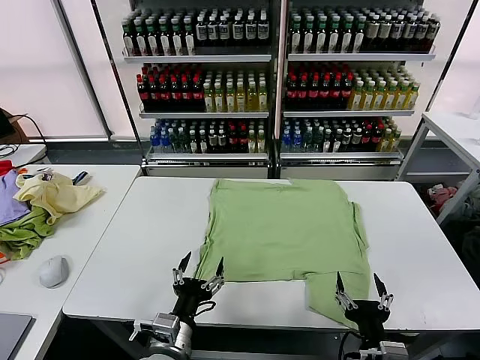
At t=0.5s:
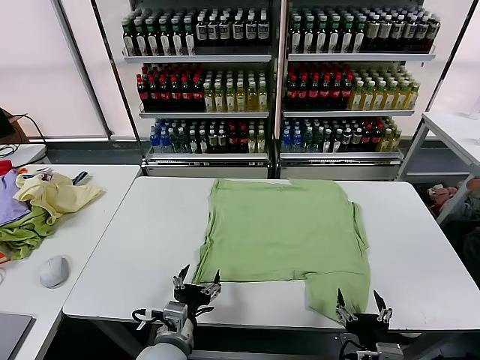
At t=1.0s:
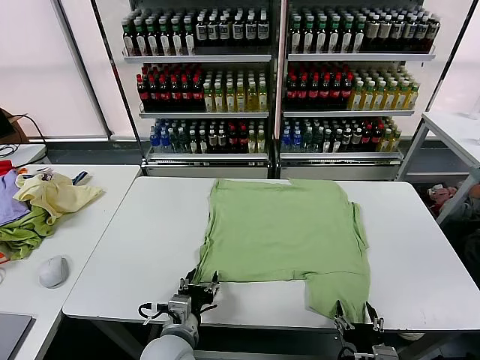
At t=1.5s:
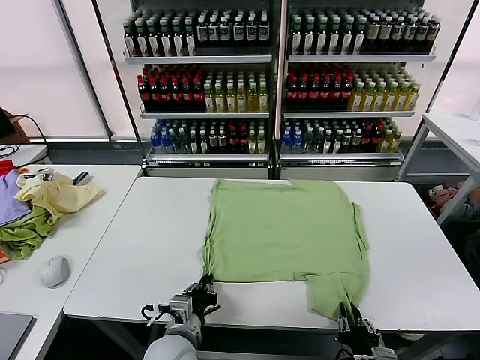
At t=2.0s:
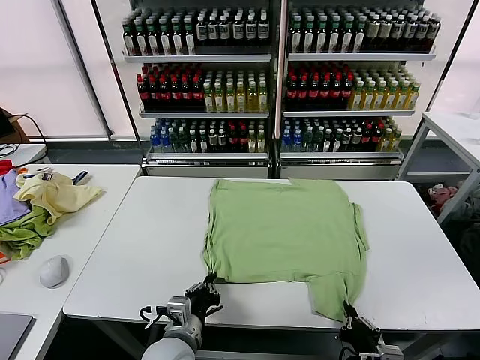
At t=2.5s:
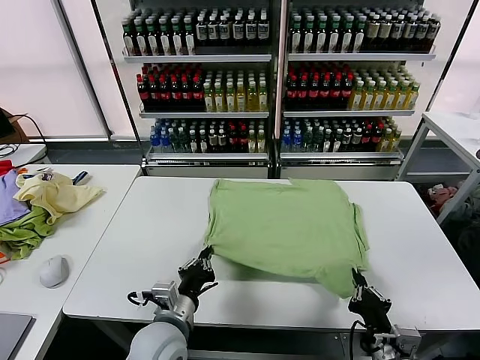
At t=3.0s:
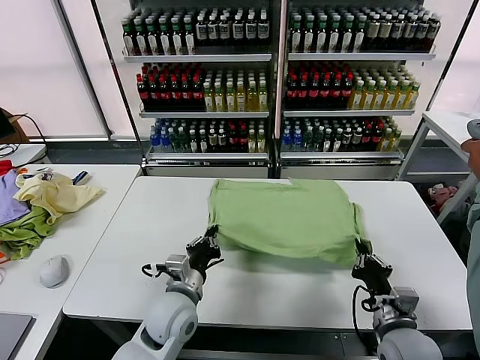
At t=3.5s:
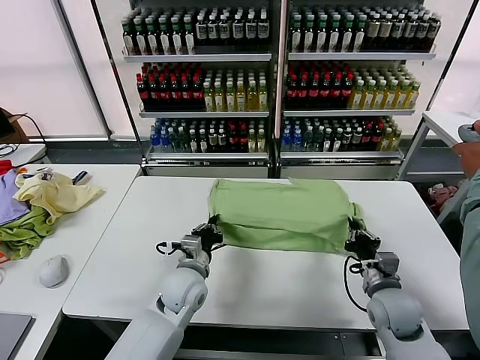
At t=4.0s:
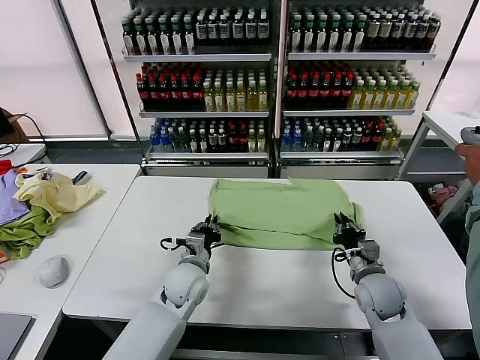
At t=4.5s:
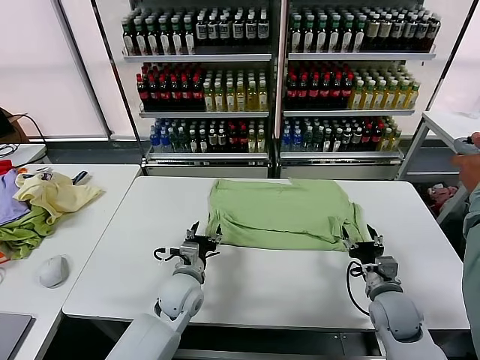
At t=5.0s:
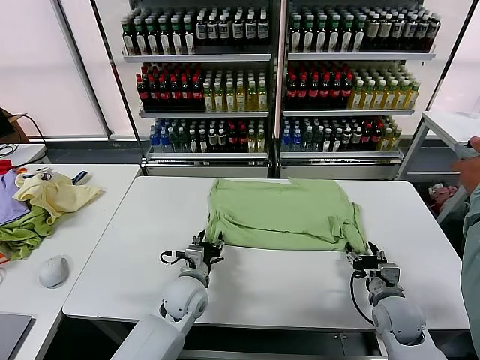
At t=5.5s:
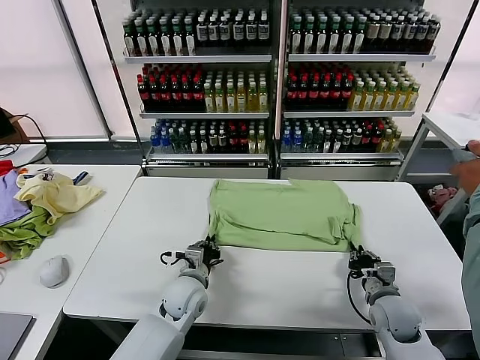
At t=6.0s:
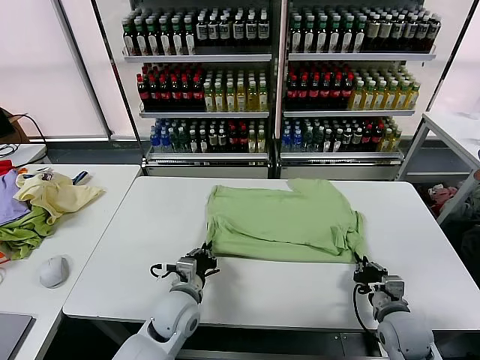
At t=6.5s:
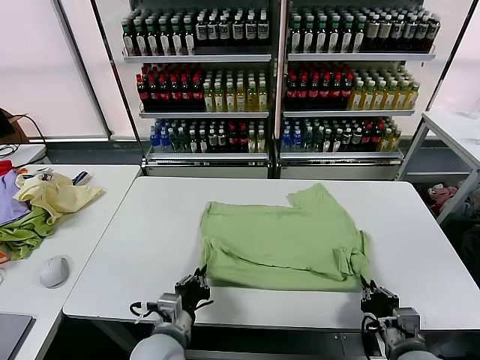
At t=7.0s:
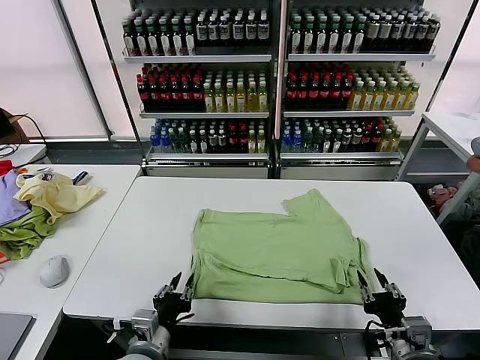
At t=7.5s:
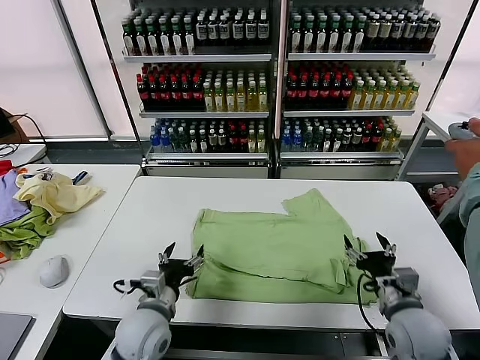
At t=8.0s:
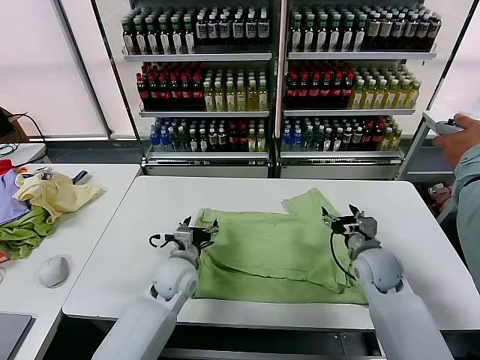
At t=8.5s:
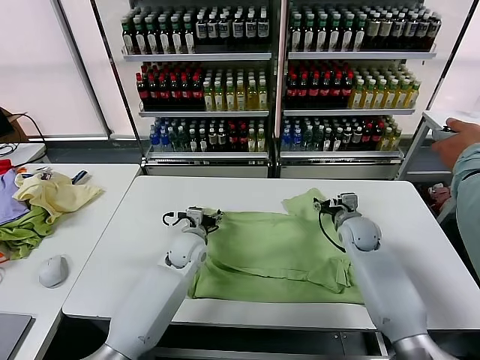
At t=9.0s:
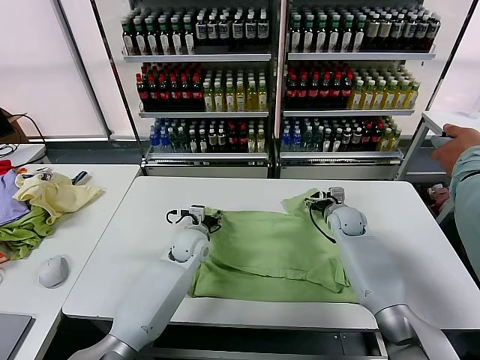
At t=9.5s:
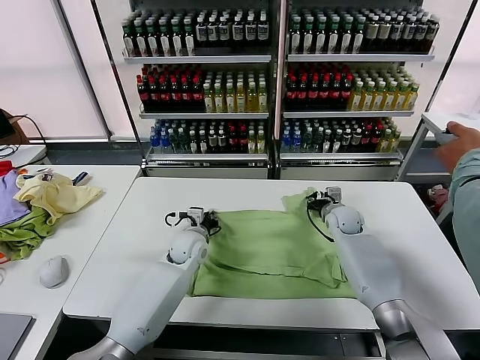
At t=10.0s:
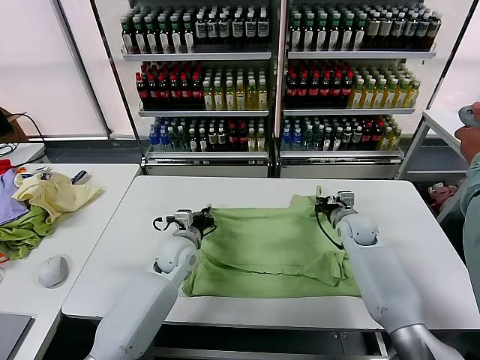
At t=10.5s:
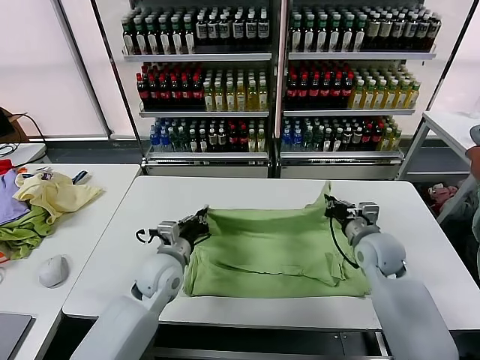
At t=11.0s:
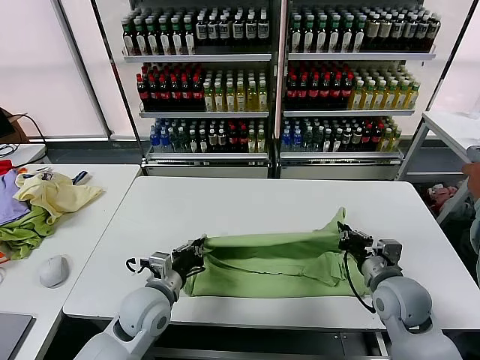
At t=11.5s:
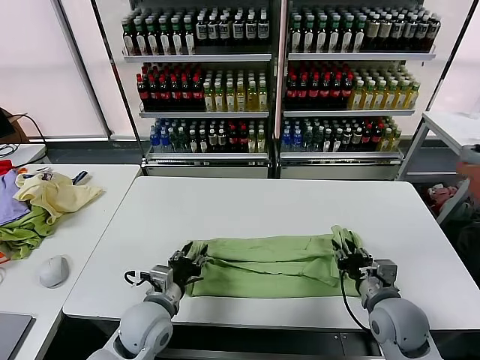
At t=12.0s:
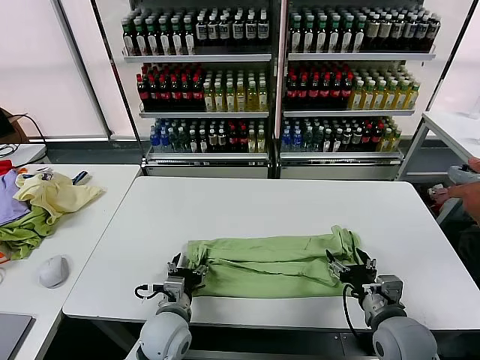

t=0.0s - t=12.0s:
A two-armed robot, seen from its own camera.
Task of the whole recording: fold and organize the clothes.
Step, t=0.0s - t=1.5s: use both grippers simultaneously to clamp the lower edge of the clothing fabric.
Step, t=2.0s - t=4.0s: use both grippers to drag the lower edge of the fabric forward and fold it over the upper edge.
Step, t=4.5s - t=6.5s: Drag the clothes downward with both gripper.
Step, t=7.0s - t=9.5s: use both grippers simultaneously to clamp the upper edge of the clothing fabric.
Step, t=10.0s - t=11.5s: use both grippers to drag the upper edge of the fabric backward and fold it over the lower edge.
t=2.0s - t=4.0s: Both grippers move forward, about 20 cm. The right gripper opens its fingers.
t=4.0s - t=6.0s: The two grippers go approximately 10 cm backward. The left gripper opens, then closes again, while the right gripper opens, then closes again.
t=6.0s - t=8.0s: The right gripper moves forward, approximately 15 cm, and opens up. The left gripper heads forward, covering approximately 10 cm, and opens up.
t=8.0s - t=10.0s: The left gripper closes its fingers. Meanwhile the right gripper shifts roughly 10 cm forward, and closes its fingers.
t=10.0s - t=12.0s: The right gripper is displaced backward by some 25 cm, and opens its fingers; the left gripper shifts about 15 cm backward, and opens.

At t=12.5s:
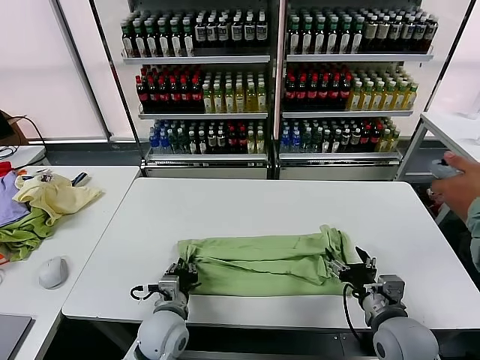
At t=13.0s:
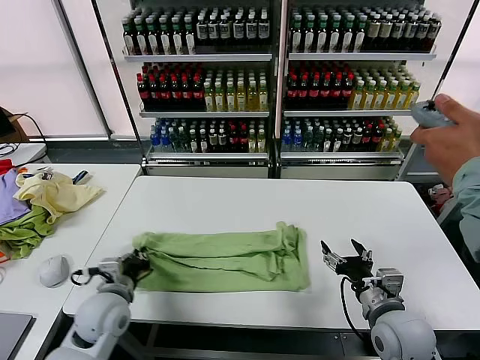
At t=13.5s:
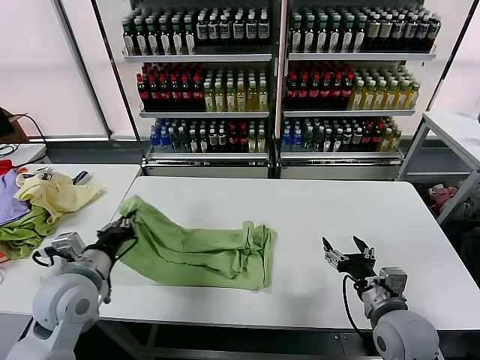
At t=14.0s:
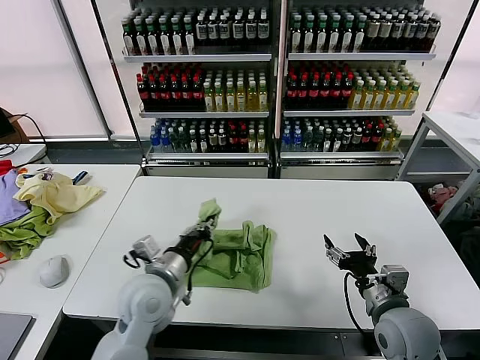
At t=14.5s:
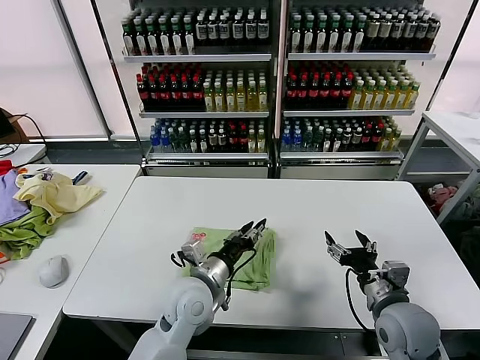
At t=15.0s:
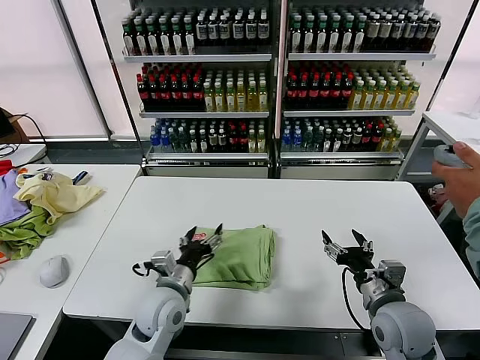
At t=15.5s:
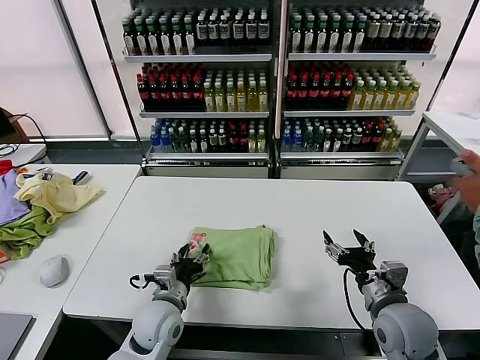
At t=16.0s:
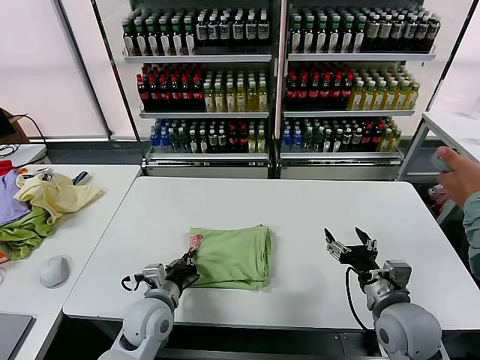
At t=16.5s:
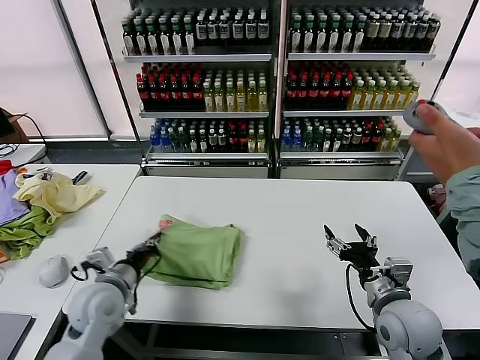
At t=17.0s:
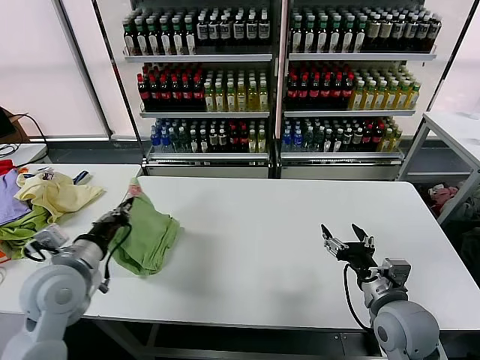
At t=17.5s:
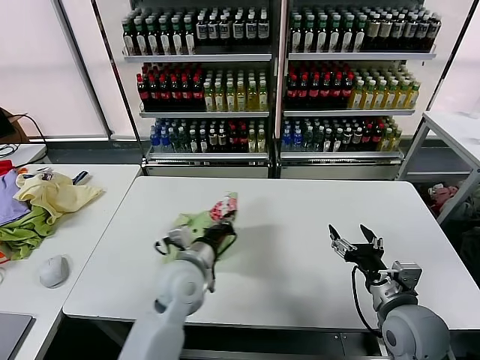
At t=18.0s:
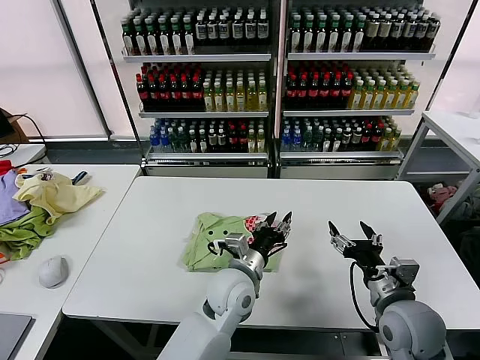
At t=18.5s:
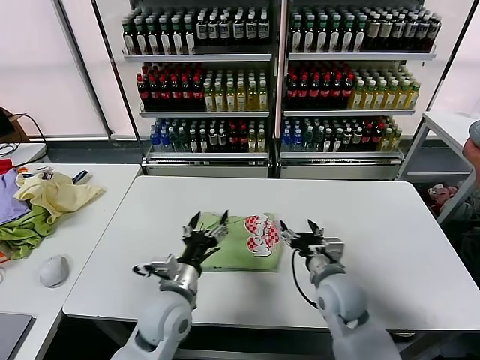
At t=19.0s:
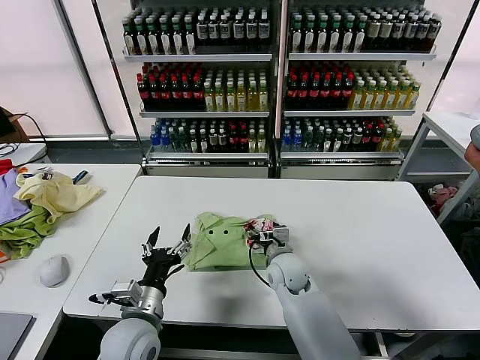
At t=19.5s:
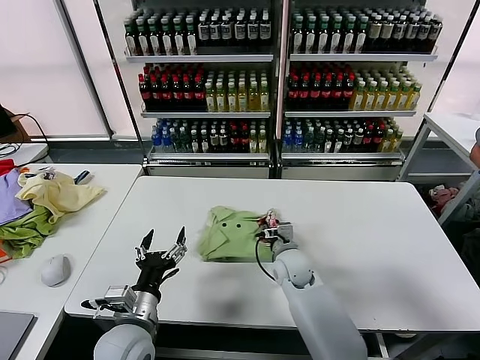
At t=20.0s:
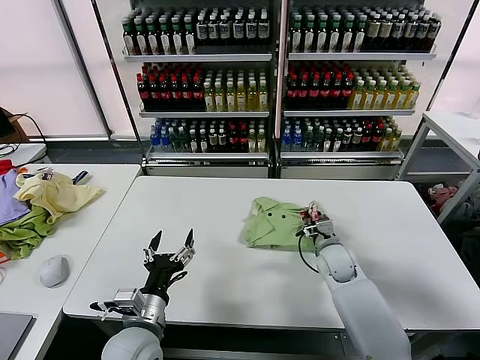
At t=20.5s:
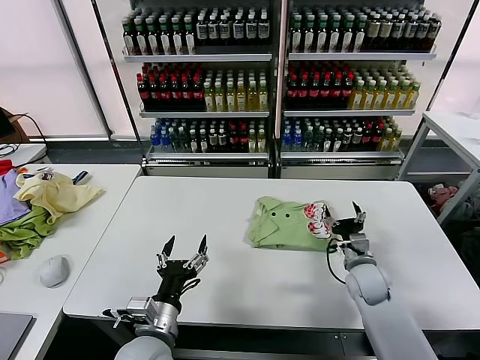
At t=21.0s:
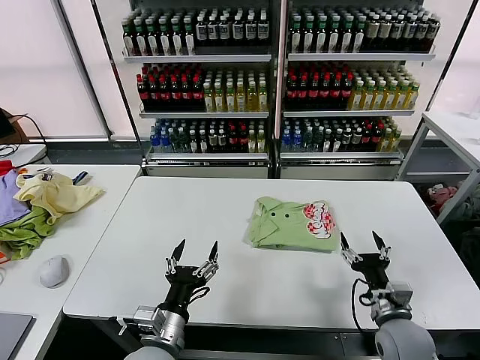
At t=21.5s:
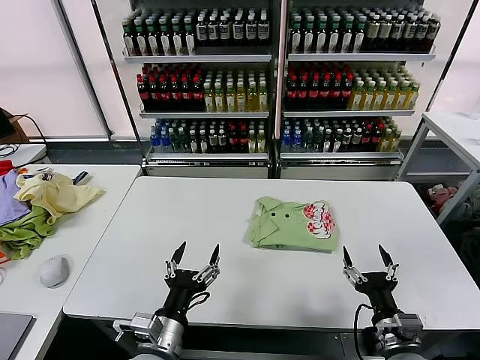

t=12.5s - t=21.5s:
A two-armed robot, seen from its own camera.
Task of the whole recording: fold and organize the clothes.
Step, t=13.0s - t=14.5s: use the left gripper to drag the left edge of the fabric to the left and folds it over the right edge.
Step, t=15.0s - t=17.5s: Flip the folded clothes over with left gripper.
Step, t=18.0s - t=20.0s: Drag the clothes to the center of the table.
t=12.5s - t=14.5s: The left gripper goes approximately 10 cm upward, and reaches roughly 15 cm to the left, then returns.
t=14.5s - t=17.0s: The left gripper moves to the left, about 20 cm, and closes.
t=17.0s - t=19.5s: The right gripper heads forward, to the left and downward, covering roughly 25 cm, and closes its fingers; the left gripper moves to the right, downward and backward, approximately 15 cm, and opens its fingers.
t=19.5s - t=21.5s: The left gripper goes some 5 cm to the right; the right gripper moves backward and to the right, roughly 30 cm, and opens.
